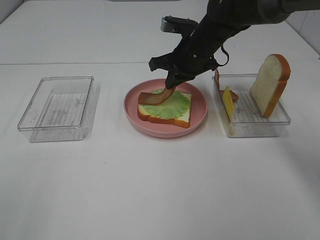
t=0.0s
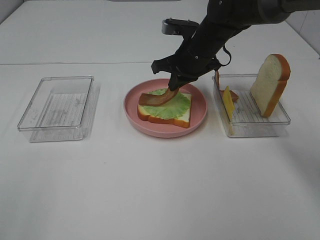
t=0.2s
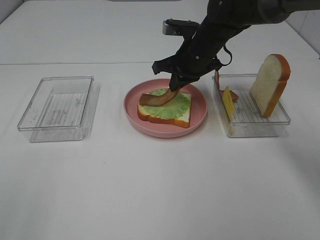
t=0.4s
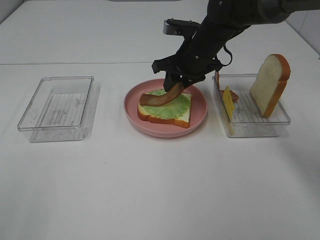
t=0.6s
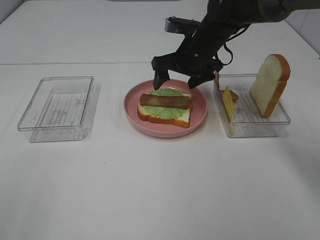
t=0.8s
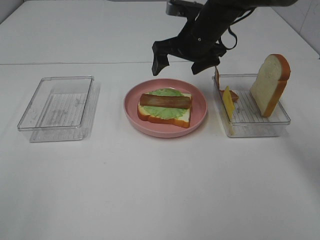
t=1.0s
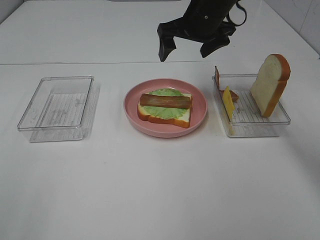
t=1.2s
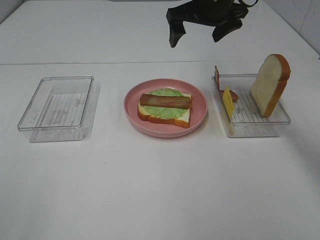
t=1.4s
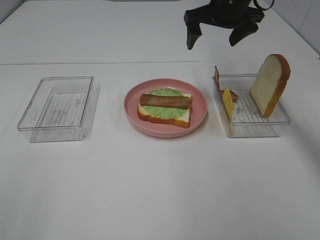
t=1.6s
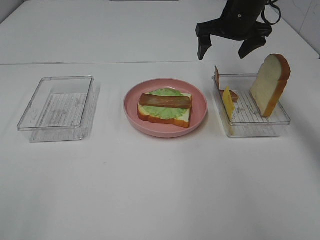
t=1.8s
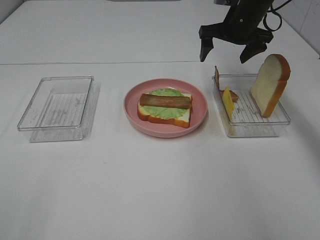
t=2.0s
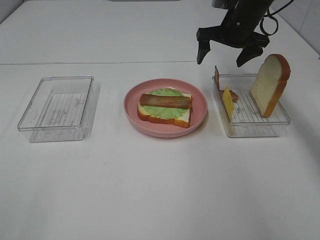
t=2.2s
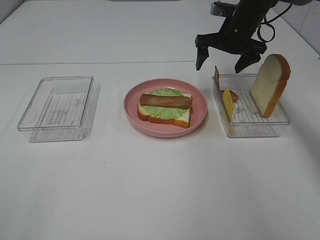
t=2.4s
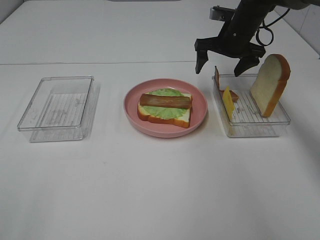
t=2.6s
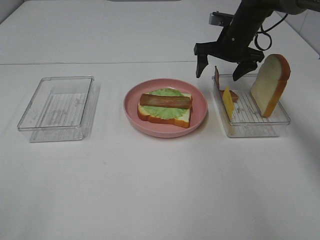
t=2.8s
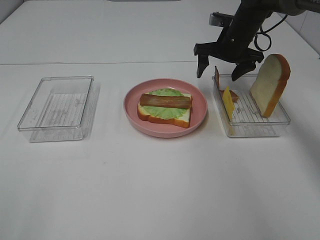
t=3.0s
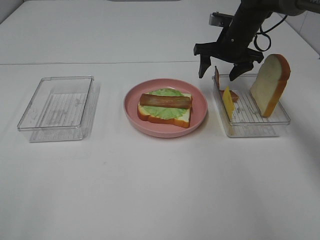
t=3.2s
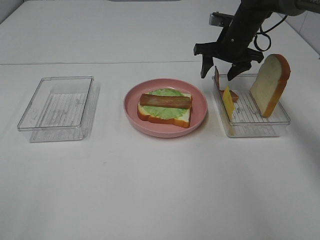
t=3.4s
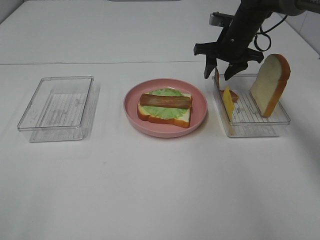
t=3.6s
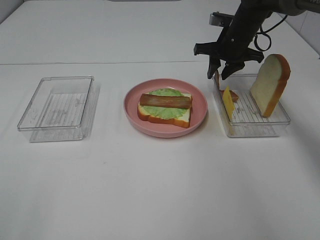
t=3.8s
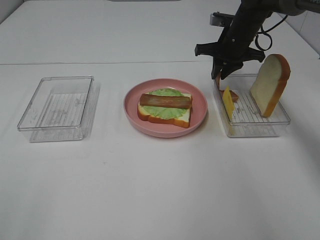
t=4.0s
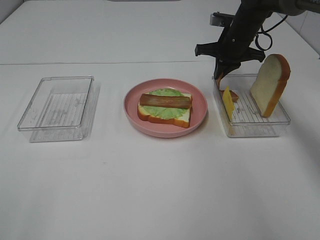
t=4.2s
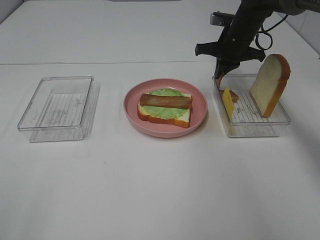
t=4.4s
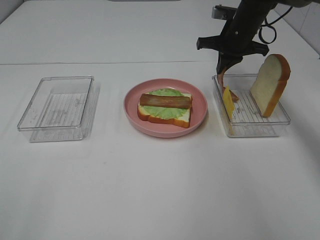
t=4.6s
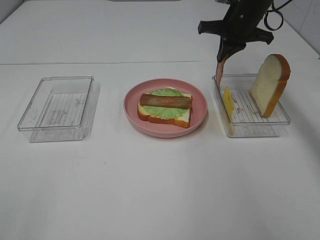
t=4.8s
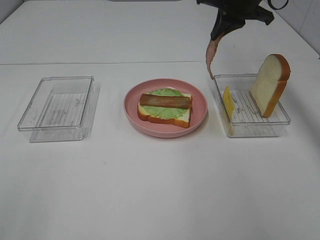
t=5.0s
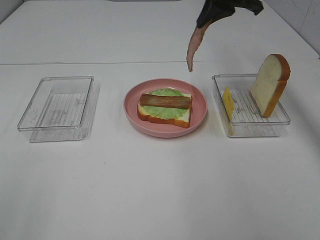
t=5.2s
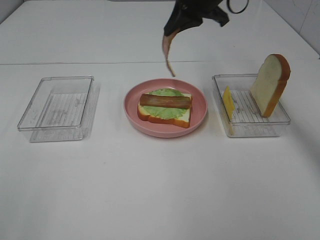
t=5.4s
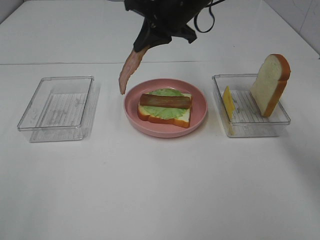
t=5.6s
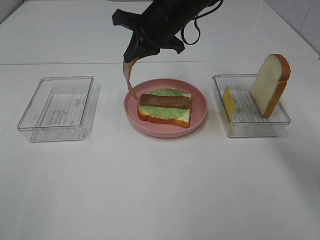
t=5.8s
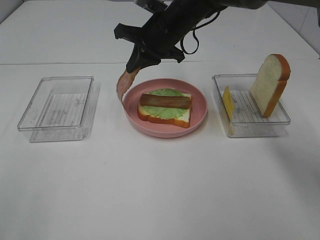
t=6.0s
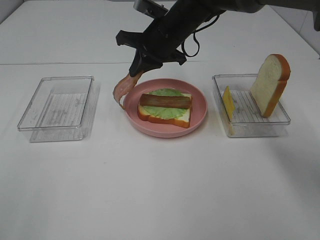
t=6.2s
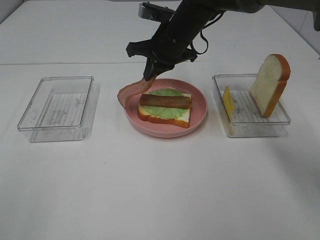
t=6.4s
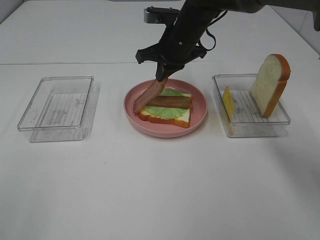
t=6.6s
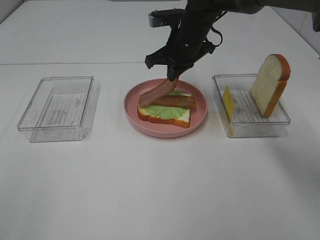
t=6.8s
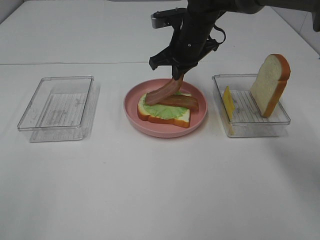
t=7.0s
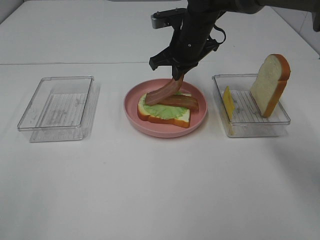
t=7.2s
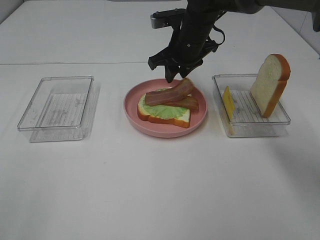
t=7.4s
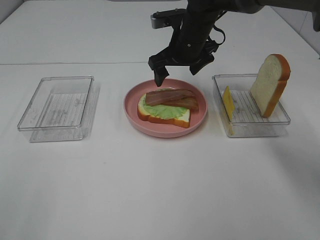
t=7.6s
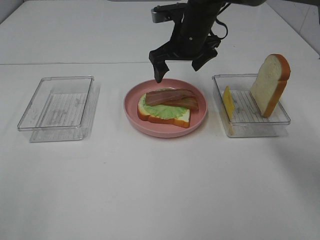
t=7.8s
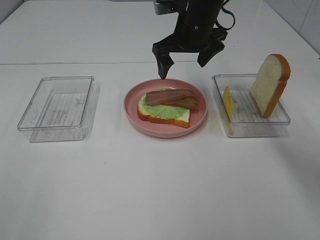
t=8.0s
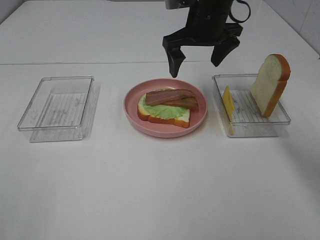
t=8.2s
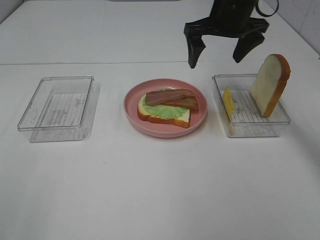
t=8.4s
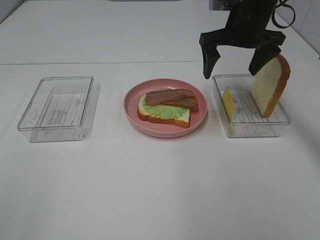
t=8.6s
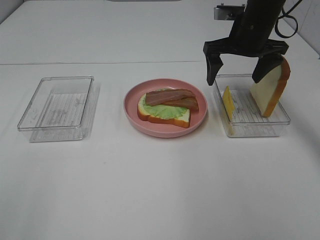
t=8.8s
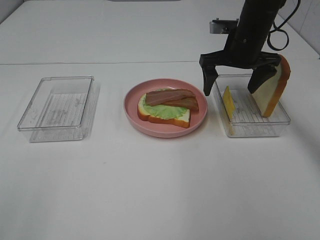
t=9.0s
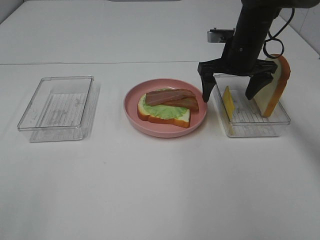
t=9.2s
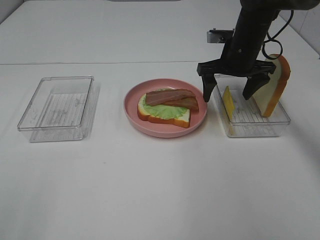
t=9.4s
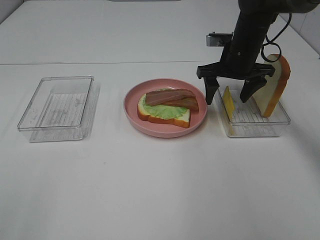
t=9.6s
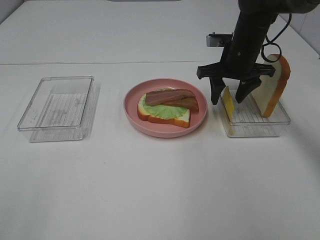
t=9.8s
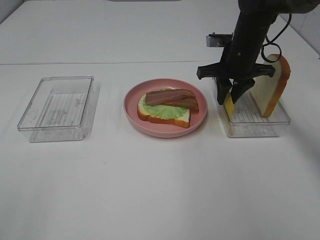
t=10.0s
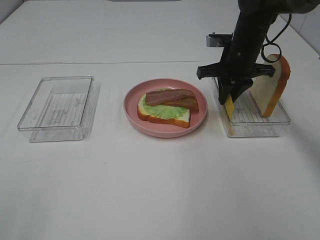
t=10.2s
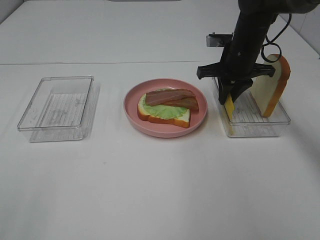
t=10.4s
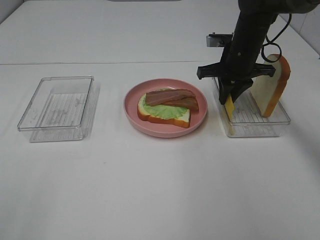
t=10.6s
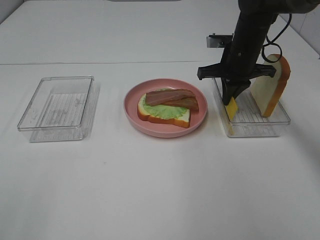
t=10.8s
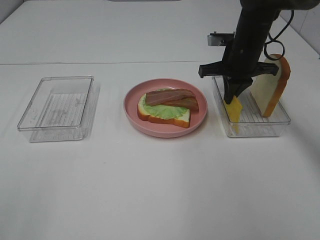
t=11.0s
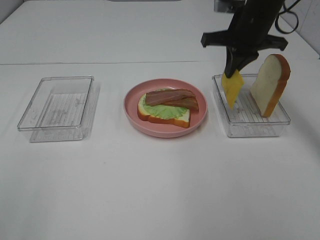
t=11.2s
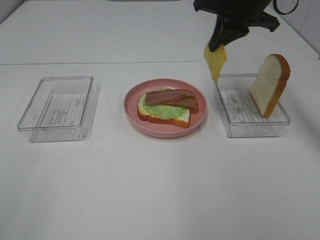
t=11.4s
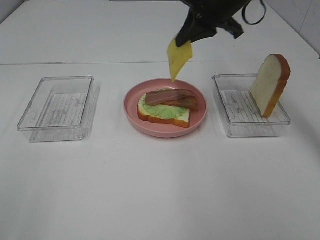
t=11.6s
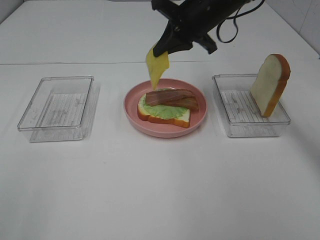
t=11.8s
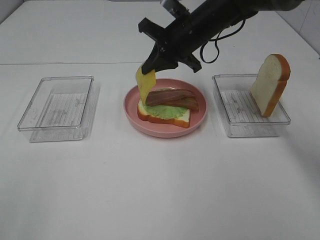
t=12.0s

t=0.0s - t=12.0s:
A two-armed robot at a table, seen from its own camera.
Task of the whole recording: Make sandwiches.
Step, t=1.4s - t=4.6s: Right hand:grab the bacon.
Step, t=4.8s - t=7.4s: Right hand:place bacon on bacon.
Step, t=7.6s - t=10.6s: Right hand:grab the cheese slice.
t=0.0s - t=1.6s: The right gripper moves upward and to the right, about 10 cm, and opens.
t=1.6s - t=3.0s: The right gripper goes roughly 10 cm downward.
t=3.0s - t=4.4s: The right gripper closes up.
t=4.4s - t=6.0s: The right gripper travels to the left and backward by roughly 15 cm.
t=6.0s - t=7.6s: The right gripper opens.
t=7.6s - t=9.0s: The right gripper is displaced to the right by roughly 10 cm.
t=9.0s - t=10.4s: The right gripper closes.
t=10.4s - t=12.0s: The right gripper moves to the left, roughly 10 cm, and goes upward and returns, approximately 10 cm each way.

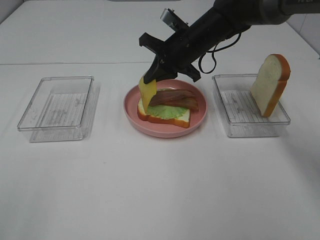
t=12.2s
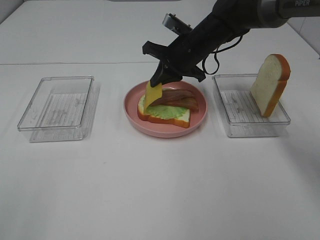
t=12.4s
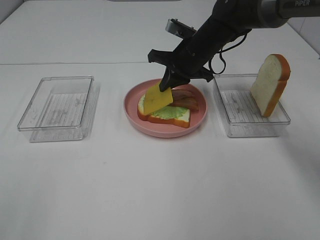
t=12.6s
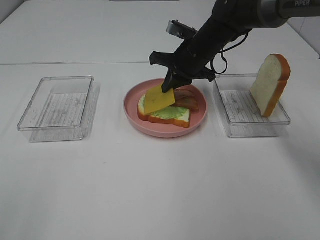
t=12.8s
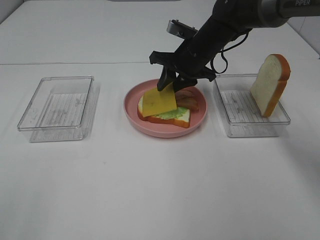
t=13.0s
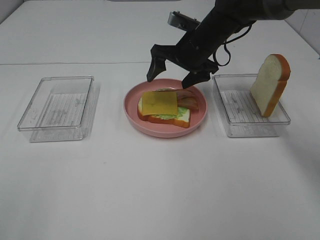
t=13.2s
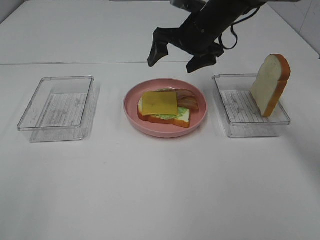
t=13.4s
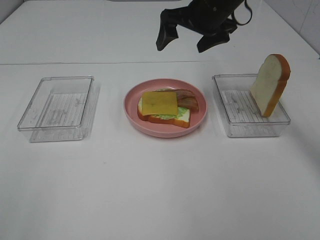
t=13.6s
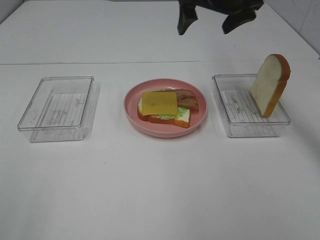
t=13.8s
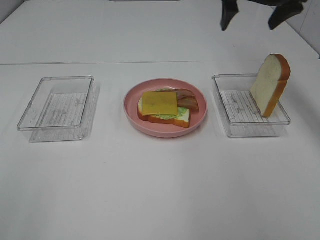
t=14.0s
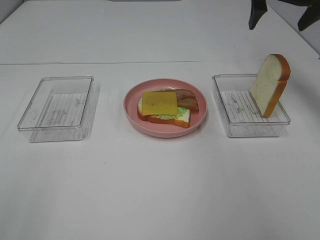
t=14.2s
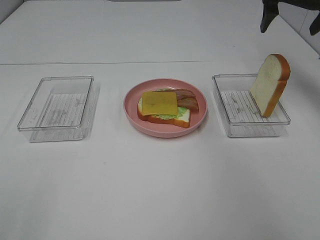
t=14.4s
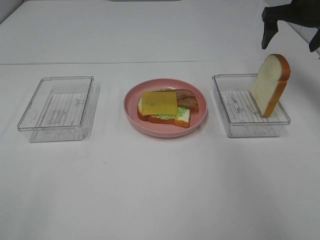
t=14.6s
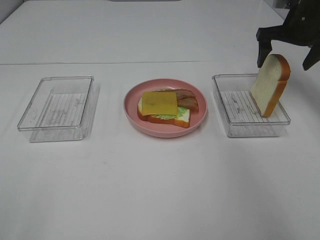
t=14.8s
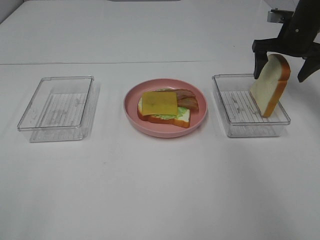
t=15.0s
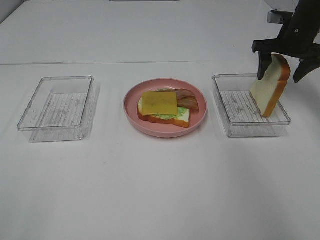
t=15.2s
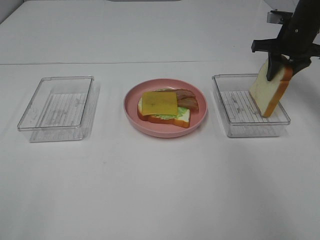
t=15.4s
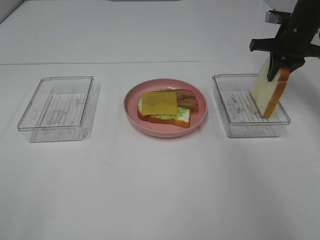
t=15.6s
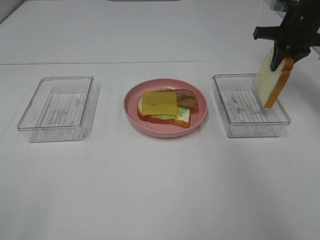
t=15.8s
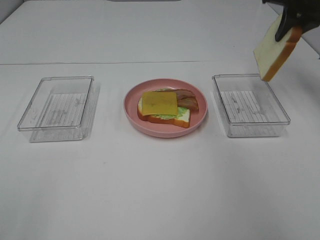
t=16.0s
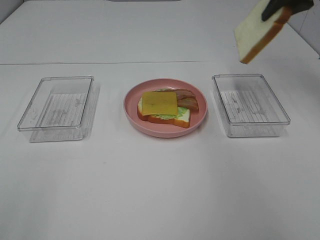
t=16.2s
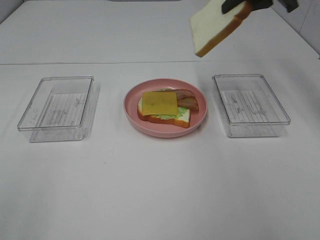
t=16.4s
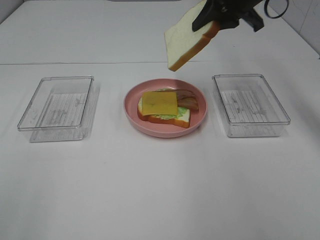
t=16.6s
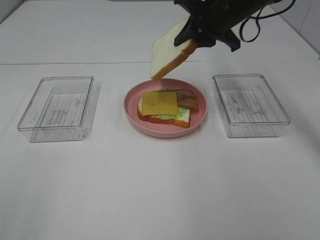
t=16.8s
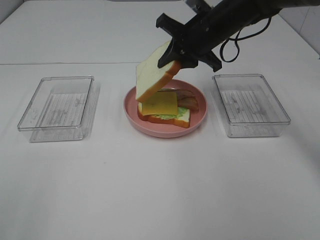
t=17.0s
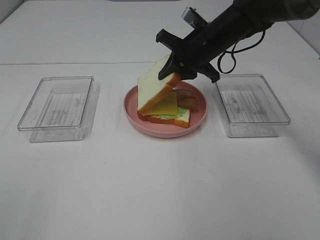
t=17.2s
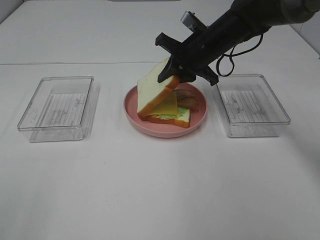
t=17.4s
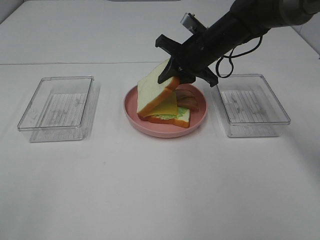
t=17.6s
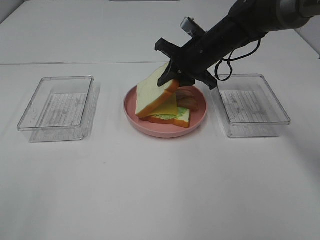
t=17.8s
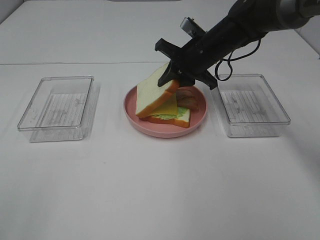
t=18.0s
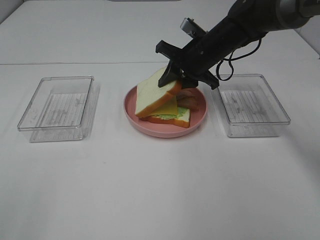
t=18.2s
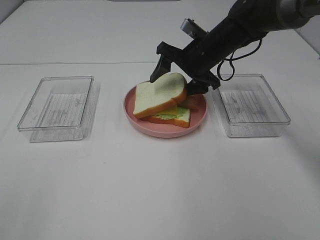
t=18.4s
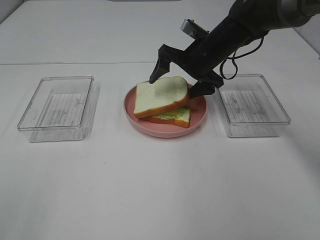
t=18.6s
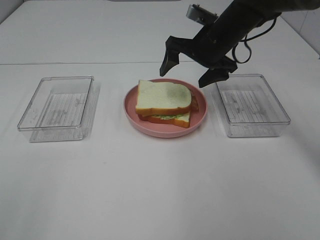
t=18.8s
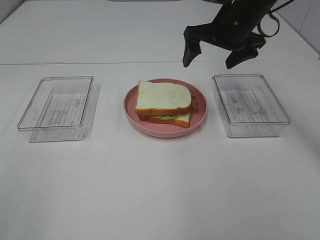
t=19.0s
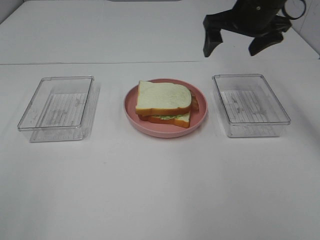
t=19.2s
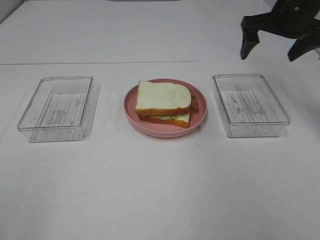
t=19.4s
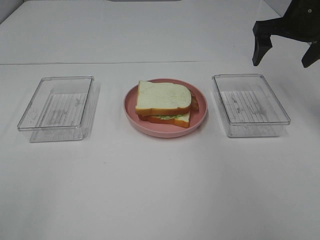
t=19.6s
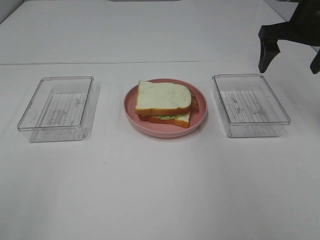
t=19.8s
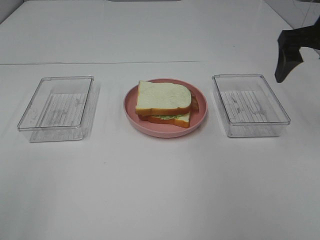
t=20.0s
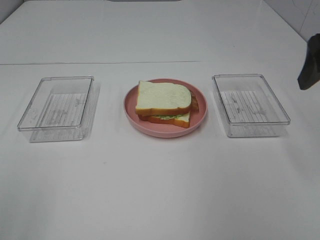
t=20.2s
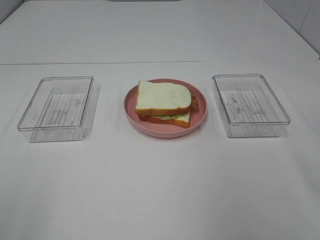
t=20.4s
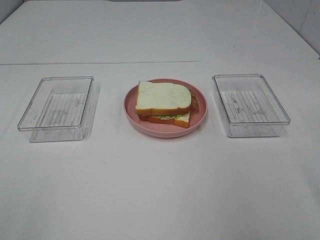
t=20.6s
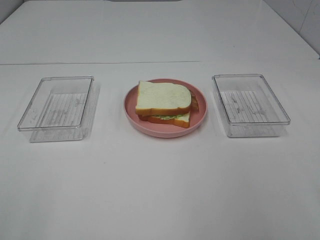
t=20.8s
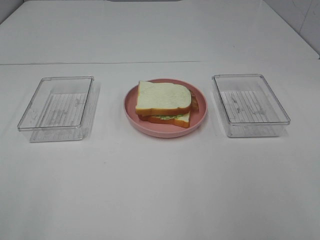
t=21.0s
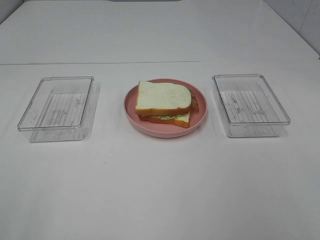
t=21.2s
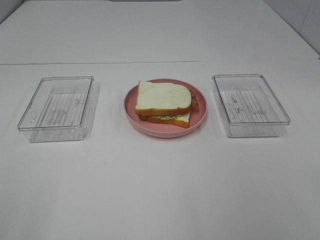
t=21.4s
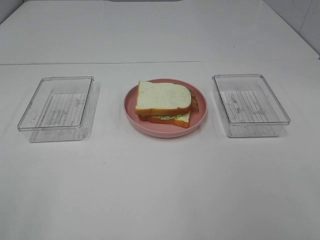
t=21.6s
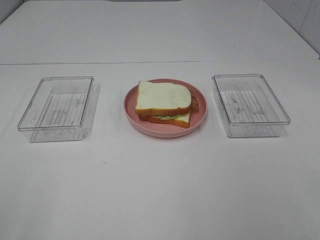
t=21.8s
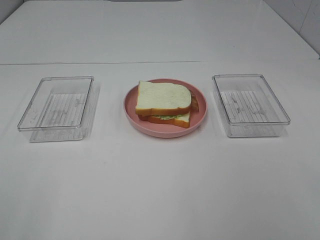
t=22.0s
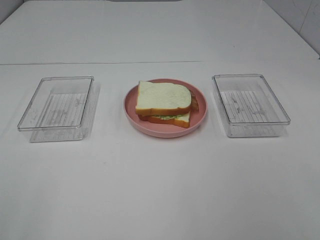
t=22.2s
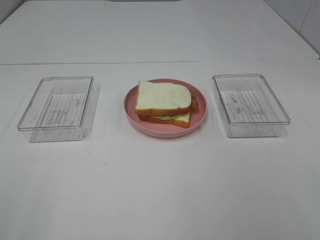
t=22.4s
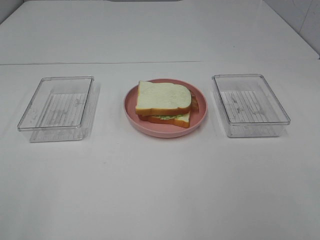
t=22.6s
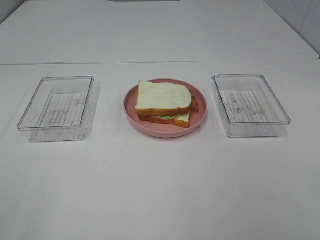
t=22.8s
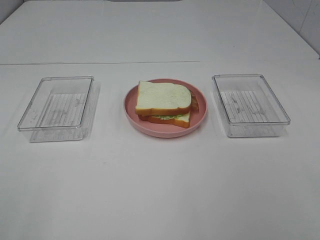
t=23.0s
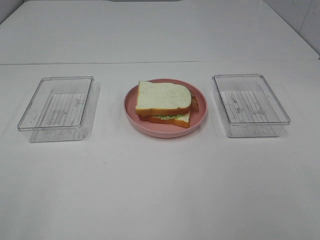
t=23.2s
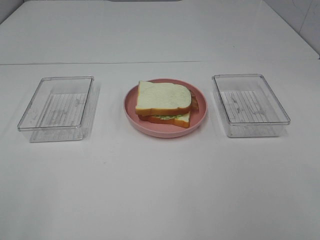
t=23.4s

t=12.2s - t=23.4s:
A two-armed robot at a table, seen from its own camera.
Task of the whole recording: Make sandwiches.
Step, t=13.6s - t=15.6s: Right hand:grab the bread slice.
Step, t=15.8s - t=18.8s: Right hand:place the bread slice on the cheese slice.
t=12.2s - t=13.8s: The right gripper travels upward and to the right by roughly 15 cm, and opens.
t=13.8s - t=15.4s: The right gripper travels to the right and downward by some 20 cm, and closes.
t=15.4s - t=17.0s: The right gripper is displaced to the left by approximately 20 cm.
t=17.0s - t=18.6s: The right gripper opens its fingers.
t=18.6s - t=20.2s: The right gripper goes roughly 30 cm backward, to the right and upward.
t=20.2s - t=21.8s: The right gripper is displaced backward by approximately 25 cm.
t=21.8s - t=23.4s: Neither gripper changes place.
